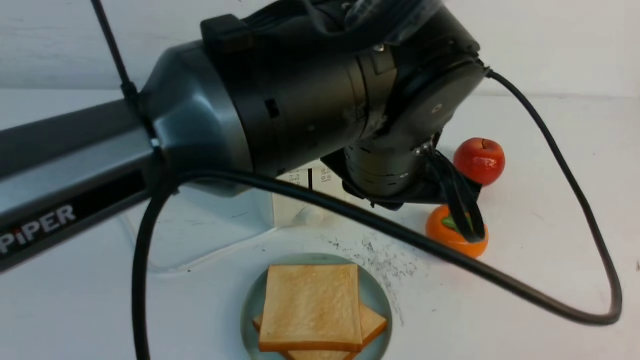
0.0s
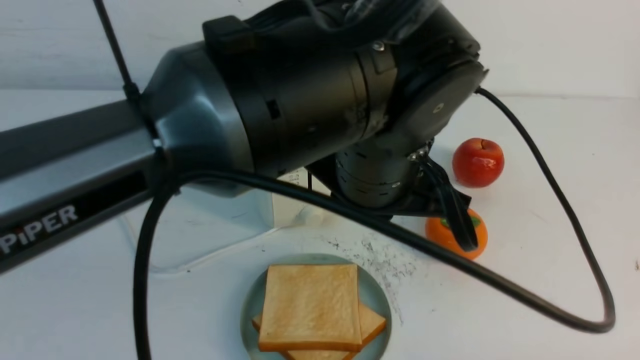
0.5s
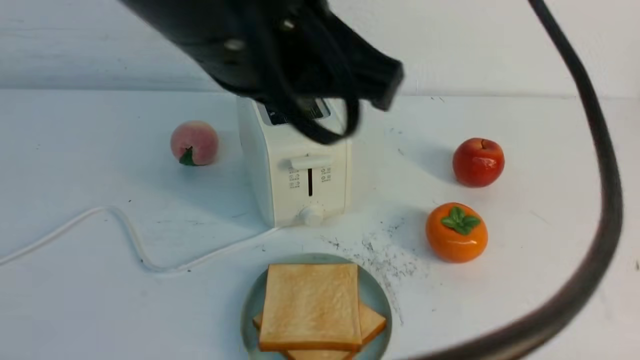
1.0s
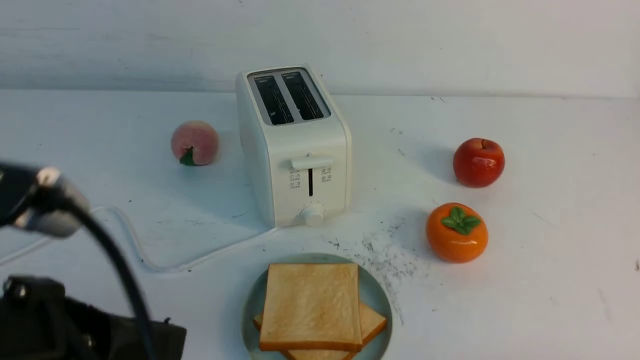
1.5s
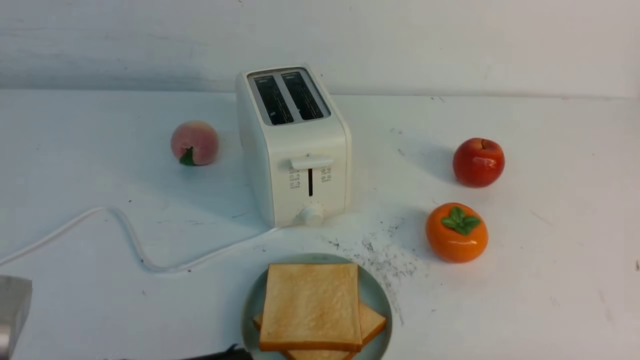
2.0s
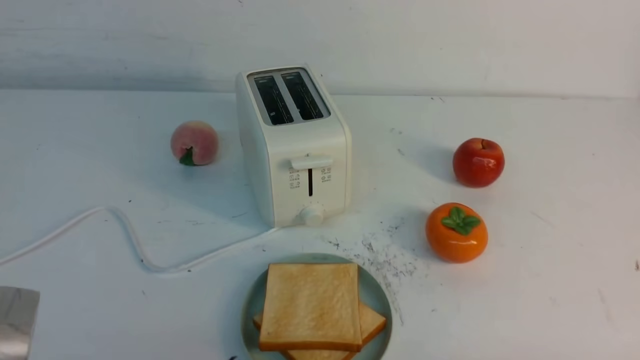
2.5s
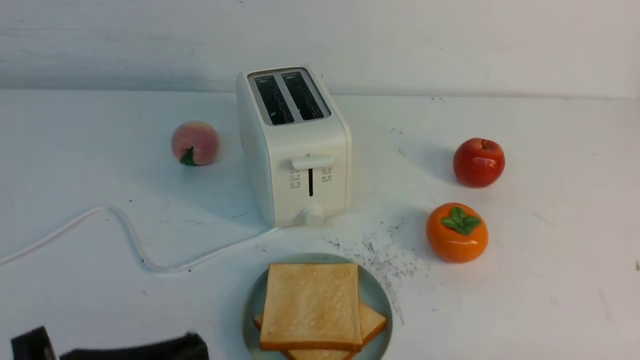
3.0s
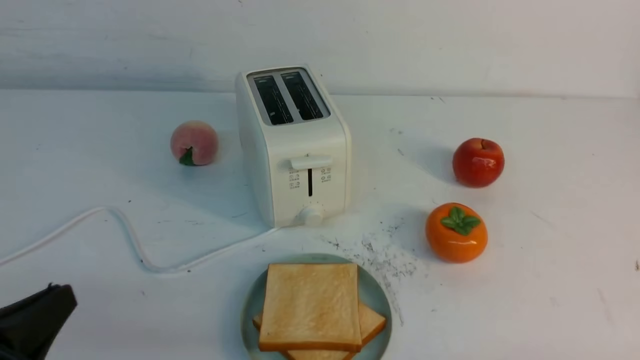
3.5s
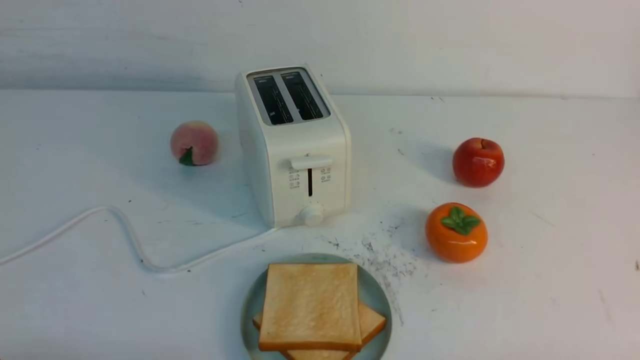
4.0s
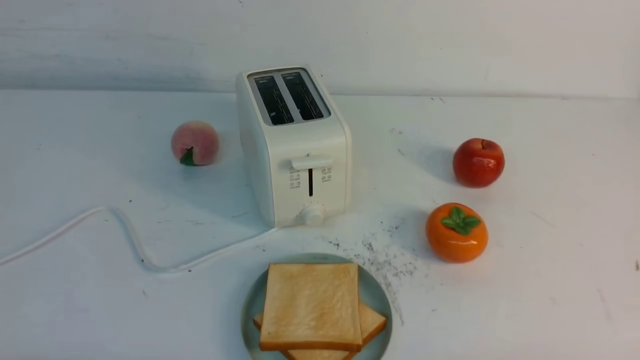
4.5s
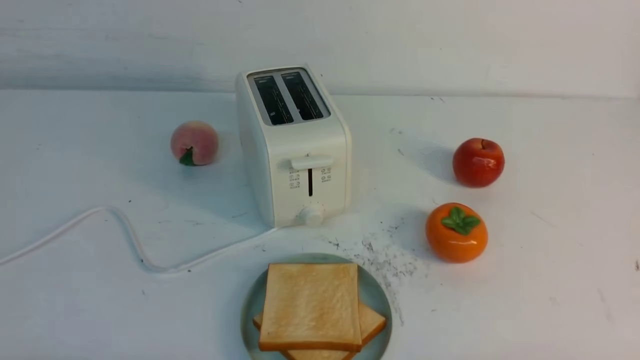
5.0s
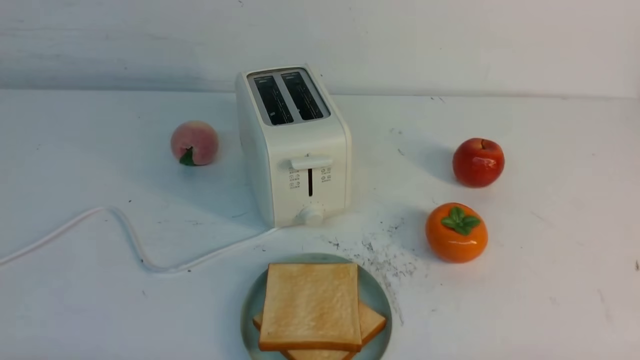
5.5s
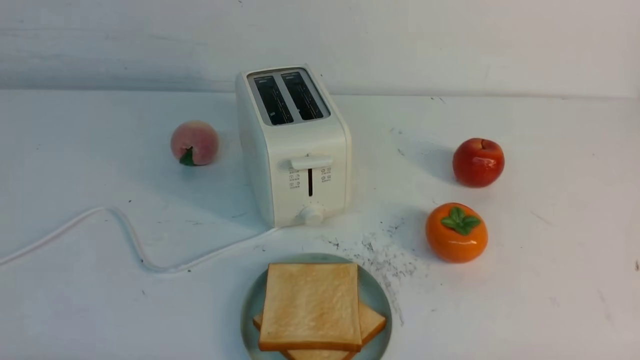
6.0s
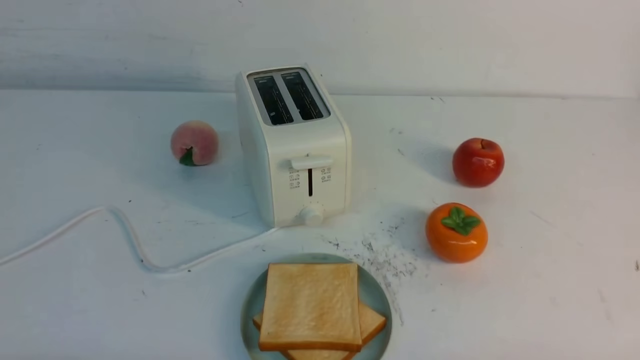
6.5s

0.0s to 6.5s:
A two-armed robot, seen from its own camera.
Task of the whole recording: take toasted bread from bread machine on white table place on plate.
0.0s to 2.0s: The left gripper goes roughly 30 cm to the left, backward and downward. Meanwhile the right gripper travels downward by some 5 cm.
2.0s to 4.5s: The left gripper travels to the left and downward by roughly 15 cm.
4.5s to 6.5s: Both grippers stay put.
